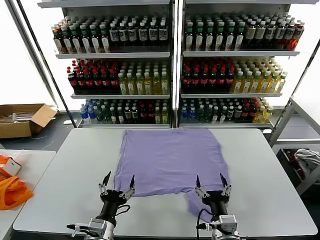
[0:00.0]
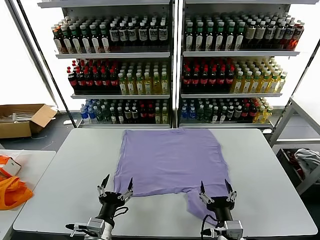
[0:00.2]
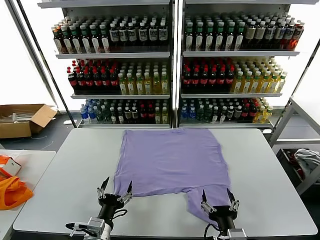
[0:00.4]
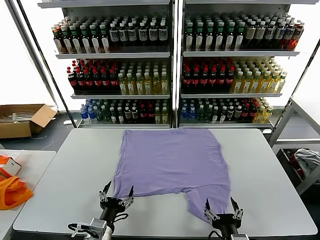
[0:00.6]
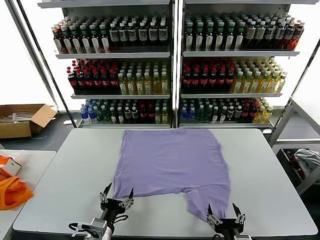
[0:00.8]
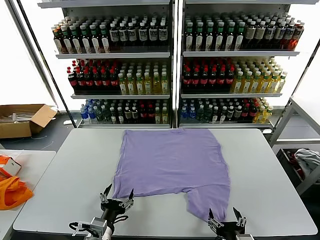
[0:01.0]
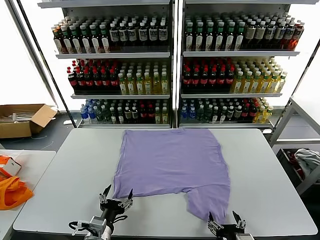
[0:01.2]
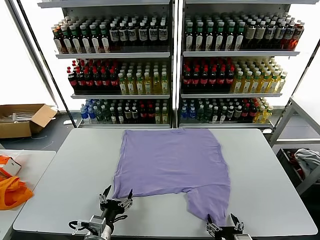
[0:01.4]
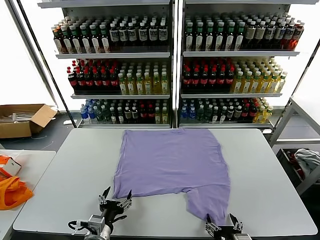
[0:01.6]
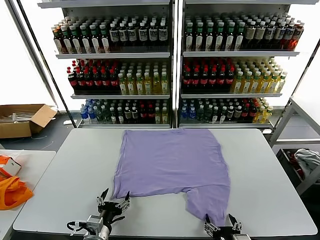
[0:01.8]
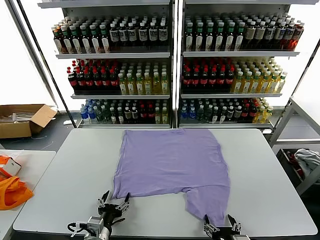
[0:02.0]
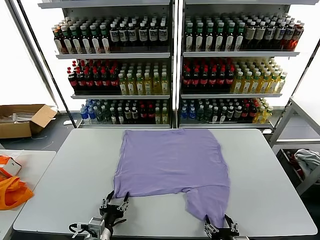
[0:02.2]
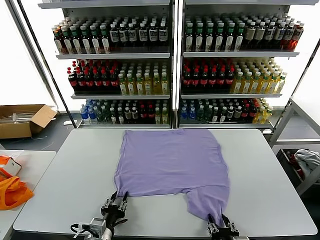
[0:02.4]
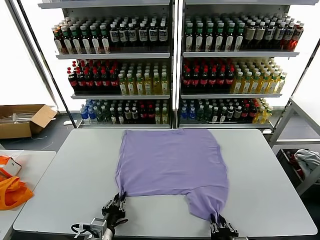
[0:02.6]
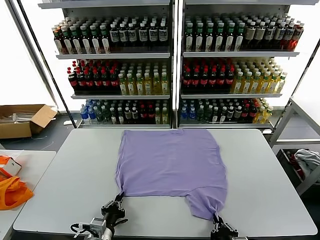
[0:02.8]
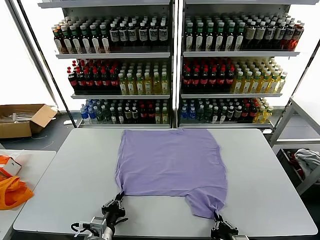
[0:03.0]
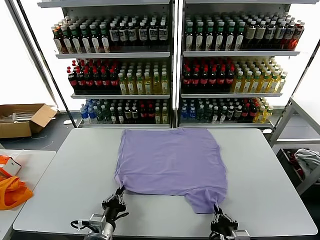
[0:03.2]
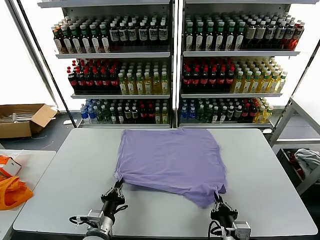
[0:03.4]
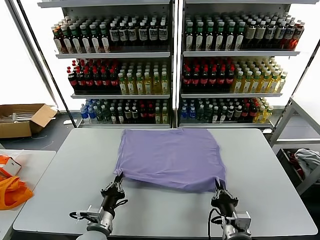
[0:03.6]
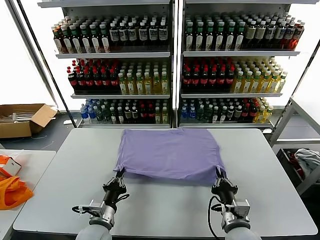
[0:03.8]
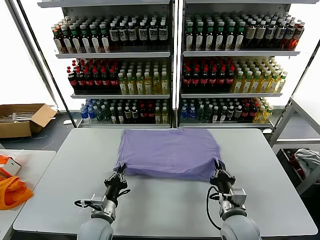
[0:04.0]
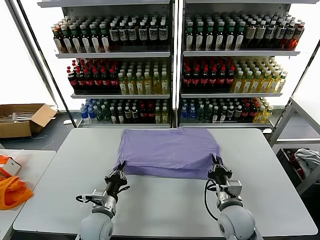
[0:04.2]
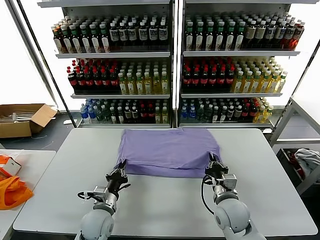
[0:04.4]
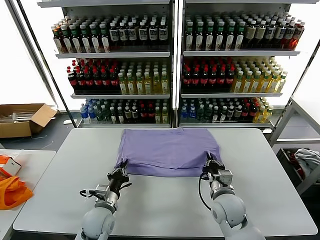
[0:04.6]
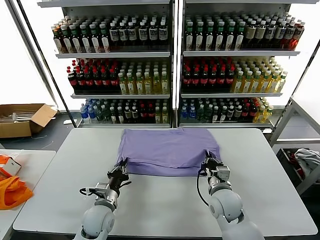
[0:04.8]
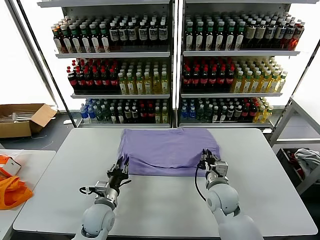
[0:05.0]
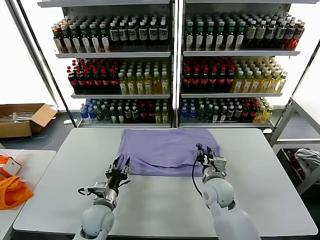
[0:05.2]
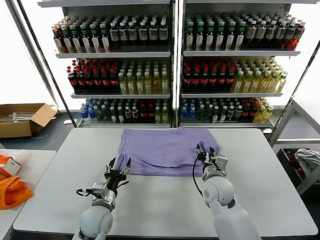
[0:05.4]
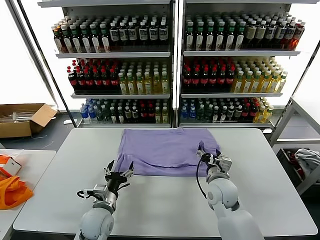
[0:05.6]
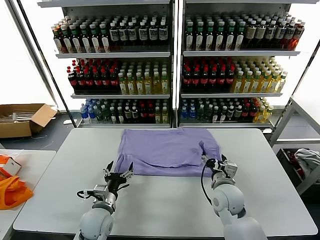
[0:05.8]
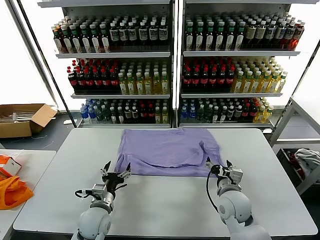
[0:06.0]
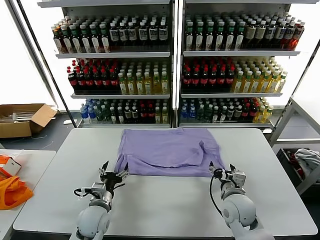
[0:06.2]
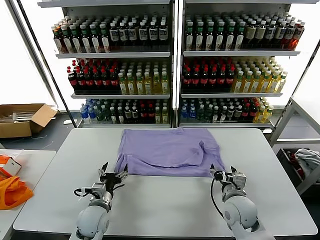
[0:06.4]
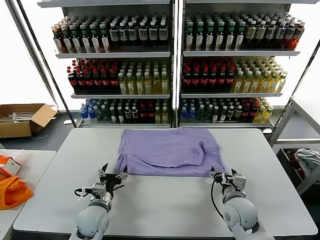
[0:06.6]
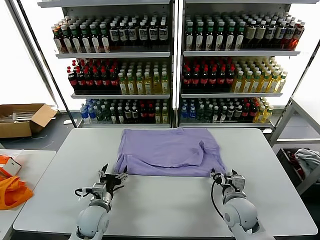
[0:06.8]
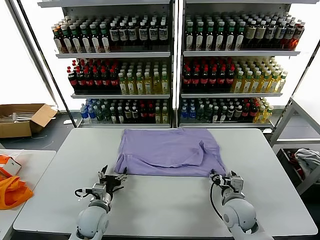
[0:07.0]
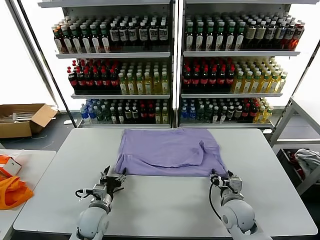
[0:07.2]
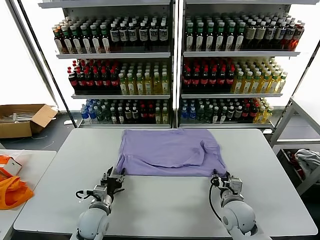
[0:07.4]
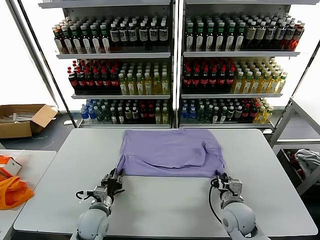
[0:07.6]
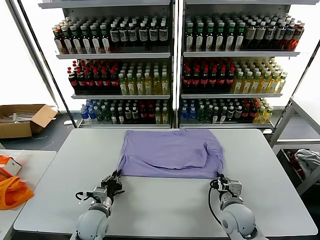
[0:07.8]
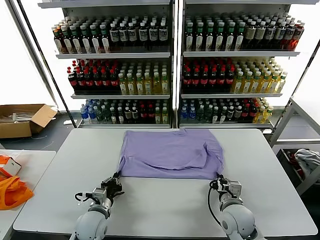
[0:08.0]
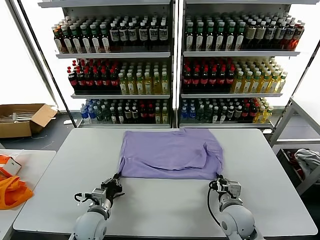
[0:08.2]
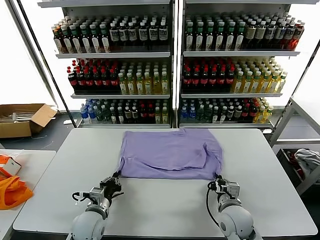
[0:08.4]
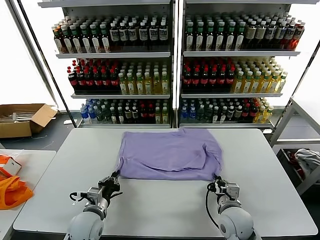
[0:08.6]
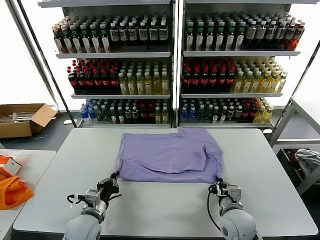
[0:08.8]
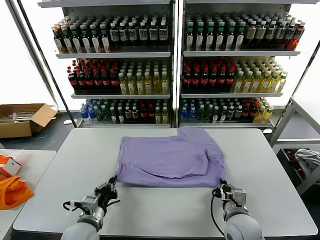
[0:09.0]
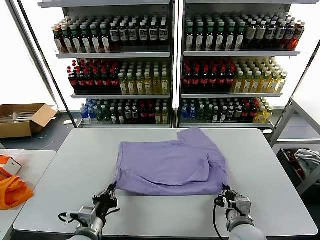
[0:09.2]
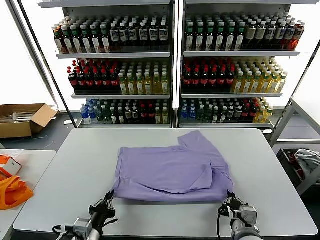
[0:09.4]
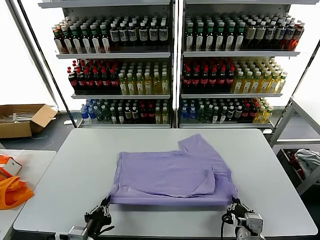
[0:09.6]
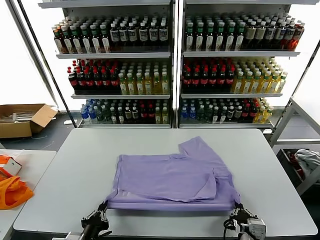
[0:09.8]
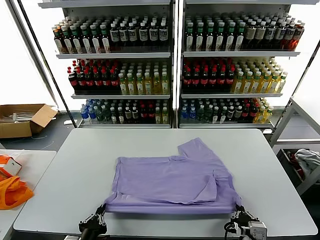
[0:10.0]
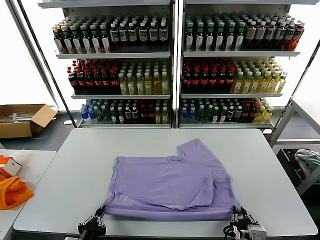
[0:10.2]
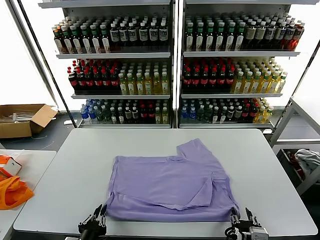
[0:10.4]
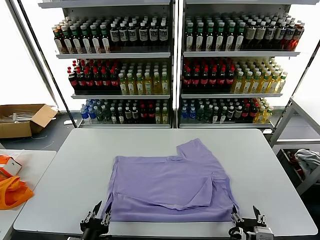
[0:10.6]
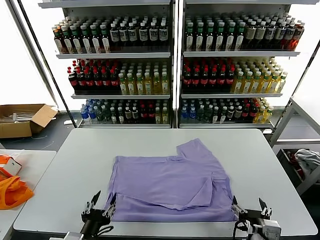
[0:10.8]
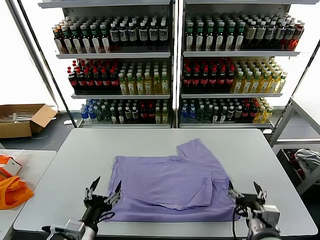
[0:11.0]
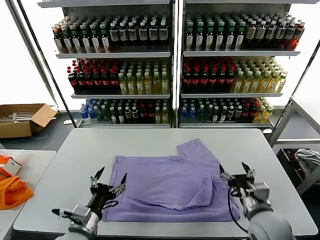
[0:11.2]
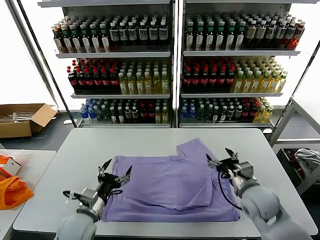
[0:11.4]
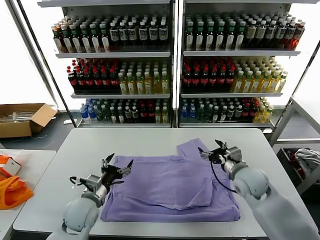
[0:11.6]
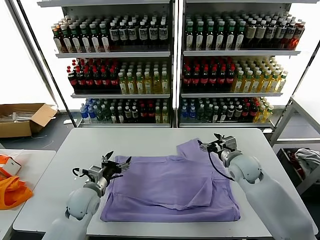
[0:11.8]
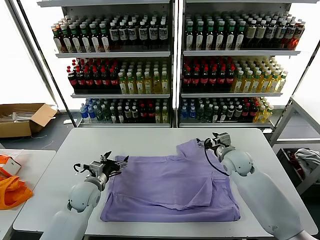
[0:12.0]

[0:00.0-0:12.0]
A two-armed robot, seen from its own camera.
Task of the whole recording: fold and organize the clothes.
Step, 0:00.0 to 0:03.0: use both grippers simultaneously to clamp the lower edge of the clothing fabric.
Step, 0:03.4 to 0:05.4: use both grippers to drag the lower edge of the fabric forward and fold it over the upper edge.
Step, 0:05.6 to 0:10.4: Drag the clothes downward with both gripper.
0:01.6 to 0:03.0: The left gripper closes its fingers; the right gripper closes its fingers.
0:03.0 to 0:04.4: The right gripper is displaced forward by some 20 cm, while the left gripper heads forward, covering about 10 cm.
0:04.4 to 0:06.0: The left gripper opens up; the right gripper opens.
0:06.0 to 0:07.6: The left gripper closes, while the right gripper closes its fingers.
0:07.6 to 0:09.0: The two grippers go about 5 cm backward. The left gripper closes its fingers.
0:09.0 to 0:10.4: The grippers both shift backward by about 10 cm. The right gripper opens up.
0:10.4 to 0:12.0: The two grippers go approximately 30 cm forward. The left gripper opens. Meanwhile the right gripper opens.

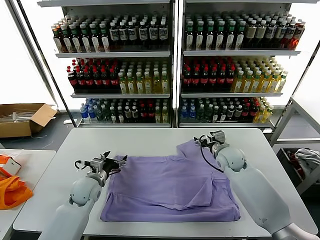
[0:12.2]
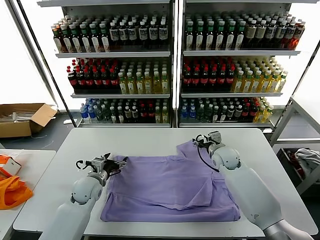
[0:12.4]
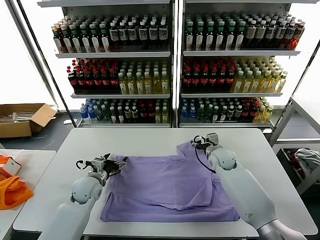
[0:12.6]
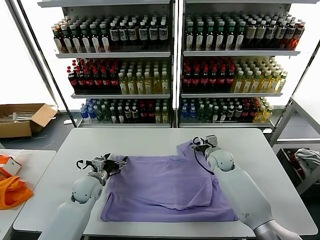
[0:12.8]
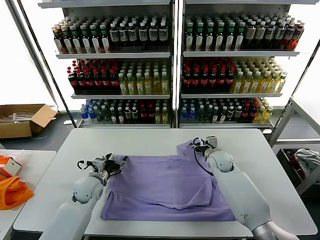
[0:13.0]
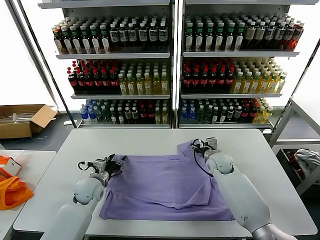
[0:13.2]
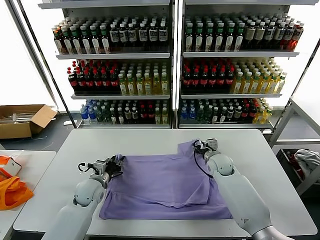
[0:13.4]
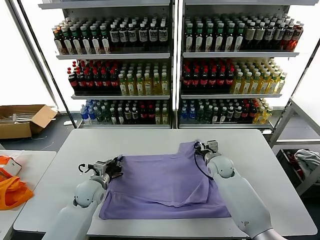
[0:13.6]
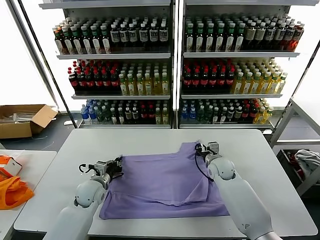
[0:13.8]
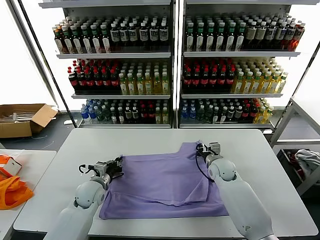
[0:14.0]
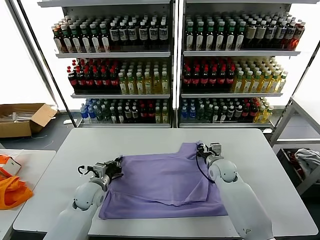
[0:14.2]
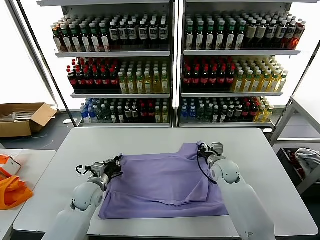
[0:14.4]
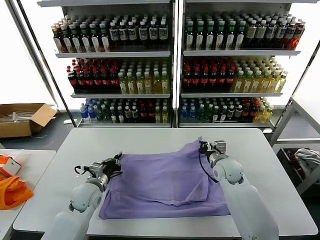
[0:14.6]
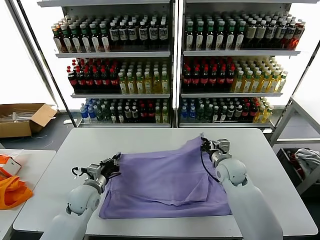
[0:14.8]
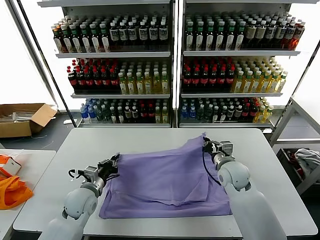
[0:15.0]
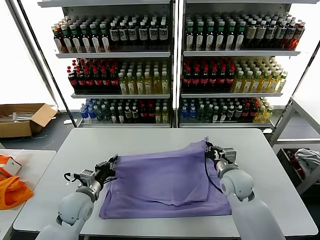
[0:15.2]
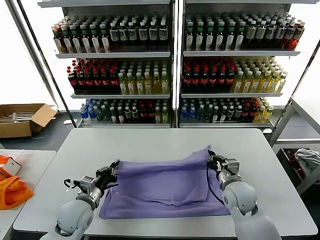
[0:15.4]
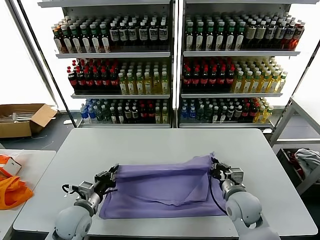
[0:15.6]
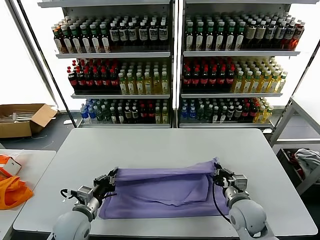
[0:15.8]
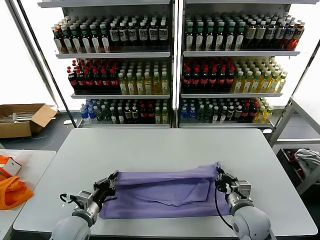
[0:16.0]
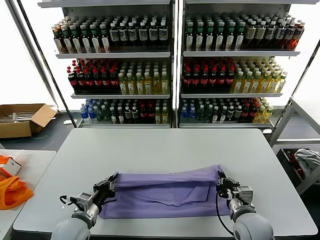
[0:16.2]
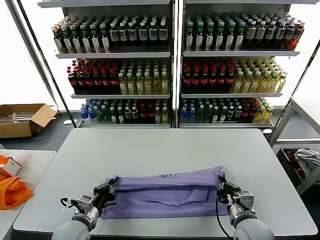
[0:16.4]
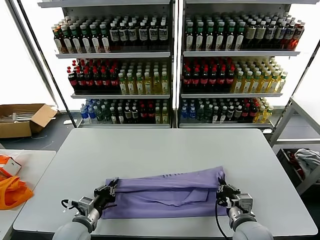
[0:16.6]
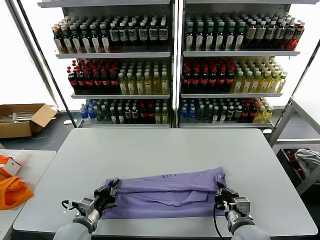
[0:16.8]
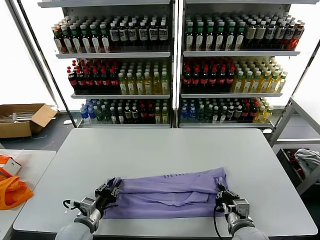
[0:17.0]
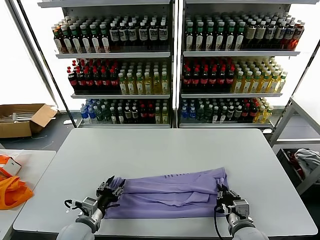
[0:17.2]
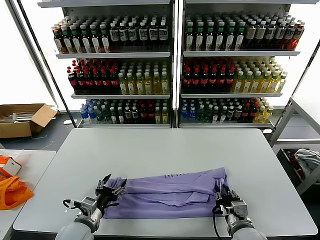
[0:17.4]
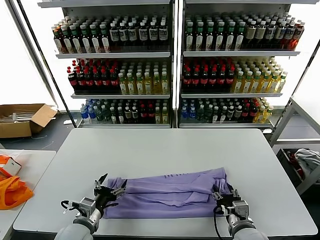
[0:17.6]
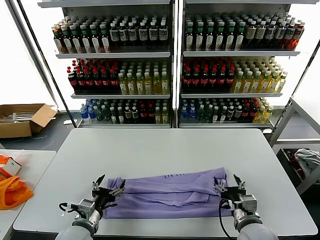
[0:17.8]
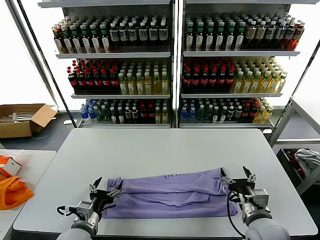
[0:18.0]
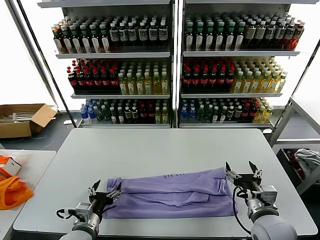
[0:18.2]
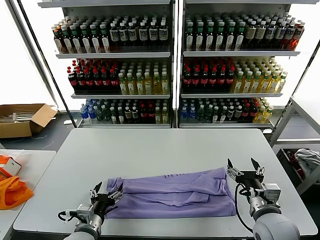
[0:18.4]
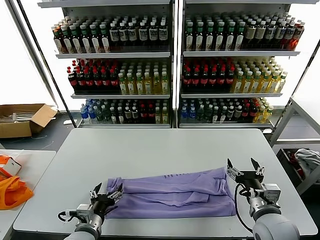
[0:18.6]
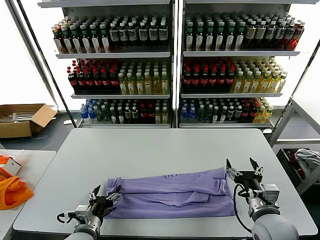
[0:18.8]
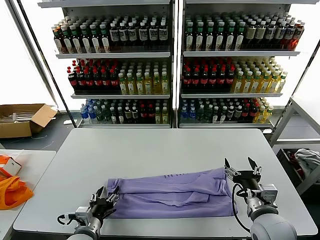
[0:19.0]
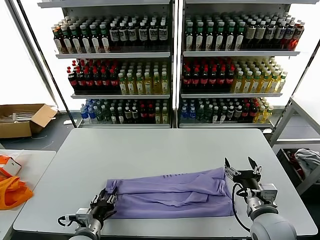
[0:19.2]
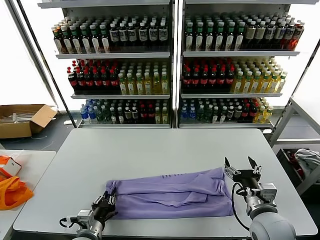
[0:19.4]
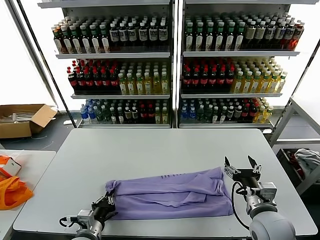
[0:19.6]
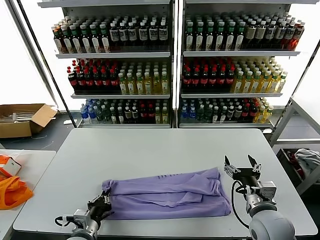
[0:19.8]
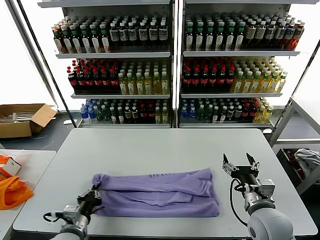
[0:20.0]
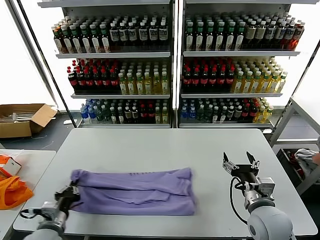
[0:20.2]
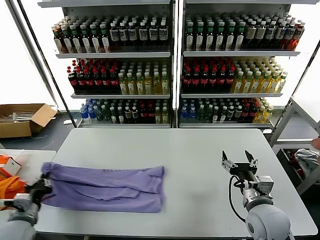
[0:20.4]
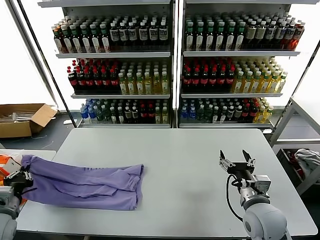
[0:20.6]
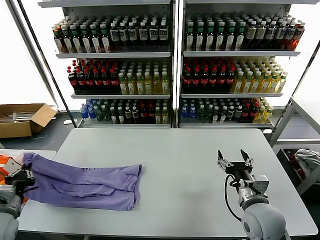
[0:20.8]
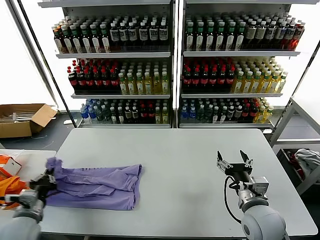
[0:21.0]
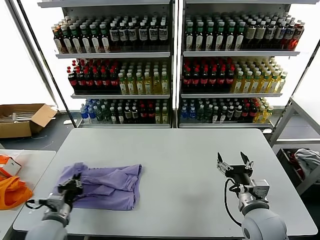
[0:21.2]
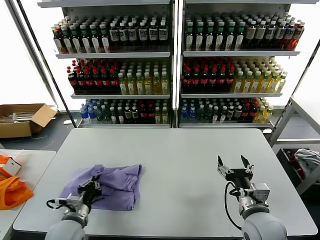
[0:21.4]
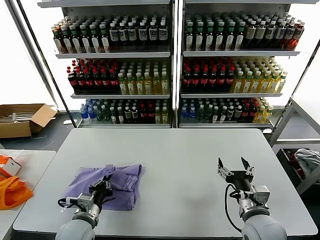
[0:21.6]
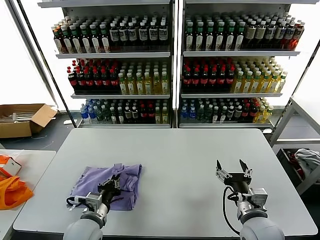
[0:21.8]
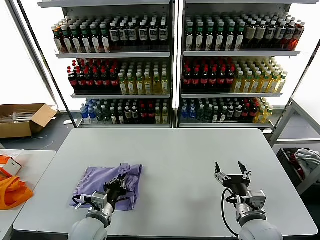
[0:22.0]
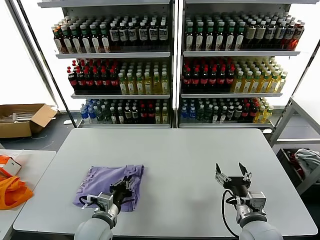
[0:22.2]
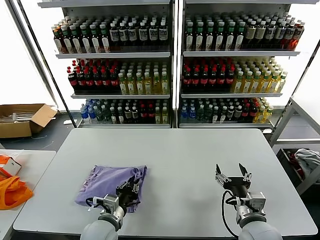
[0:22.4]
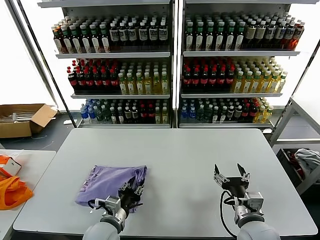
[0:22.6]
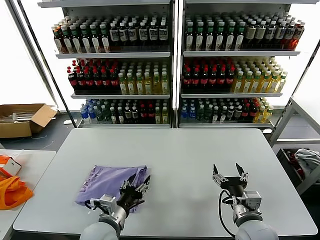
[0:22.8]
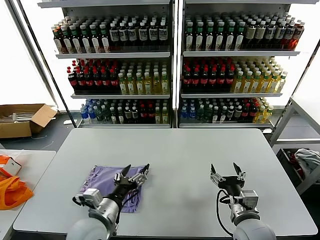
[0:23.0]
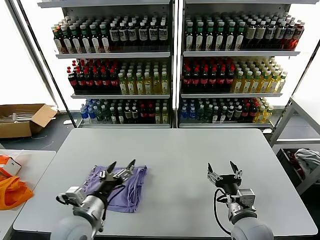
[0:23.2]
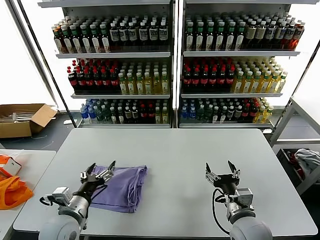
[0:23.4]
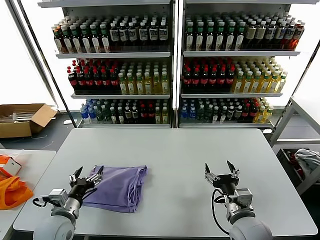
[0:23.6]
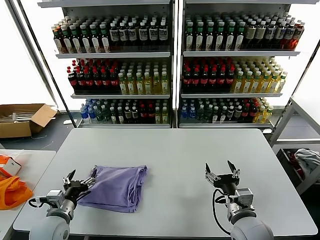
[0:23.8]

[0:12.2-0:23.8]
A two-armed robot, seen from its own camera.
Task of the whole recording: fold and organize the clothes.
Step, 0:12.2 to 0:14.2: use both grippers simultaneously to clamp the upper edge of the clothing fabric.
Step, 0:14.6 to 0:17.6: use both grippers to drag the upper edge of the fabric backward and fold it over the lower edge.
Step, 0:18.0 to 0:19.6: use the left gripper to clamp the left edge of the fabric.
Step, 0:20.0 to 0:22.8: use the left gripper to drag the left edge of the fabric to the left and folds it over the right edge.
0:12.2 to 0:13.6: The left gripper closes its fingers. The right gripper moves downward, roughly 5 cm, and closes up.
0:13.6 to 0:15.0: The left gripper moves about 5 cm. The right gripper travels backward and upward by approximately 10 cm.
0:15.0 to 0:16.6: The right gripper moves backward, some 20 cm; the left gripper moves backward, about 10 cm.
0:16.6 to 0:18.0: The left gripper opens its fingers. Meanwhile the right gripper ends up some 5 cm from where it was, and opens up.
0:18.0 to 0:19.4: The left gripper closes up.
0:19.4 to 0:21.0: The left gripper heads to the left and upward, covering approximately 20 cm.
0:21.0 to 0:22.4: The left gripper heads to the right, covering approximately 20 cm.
0:22.4 to 0:23.8: The left gripper shifts about 15 cm to the left, and opens its fingers.
